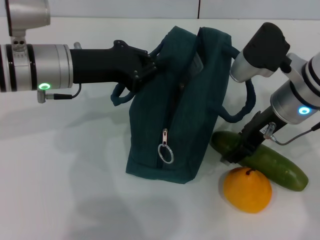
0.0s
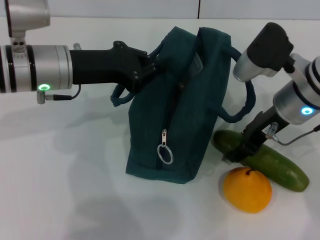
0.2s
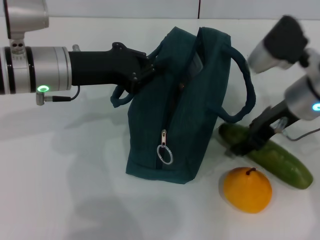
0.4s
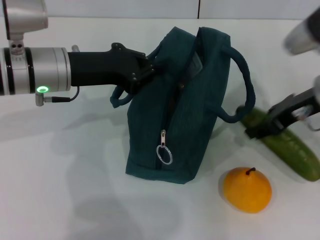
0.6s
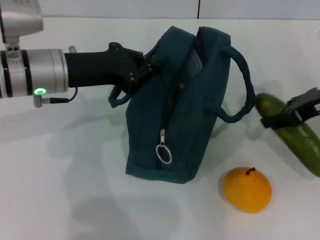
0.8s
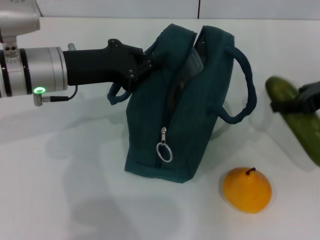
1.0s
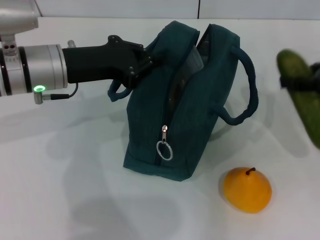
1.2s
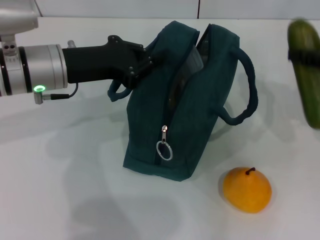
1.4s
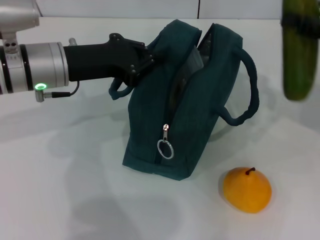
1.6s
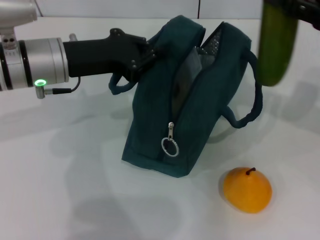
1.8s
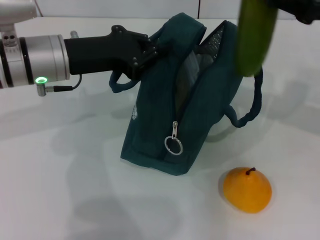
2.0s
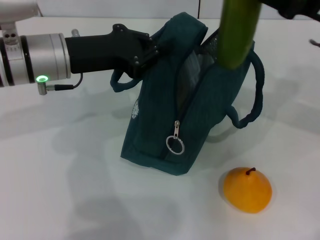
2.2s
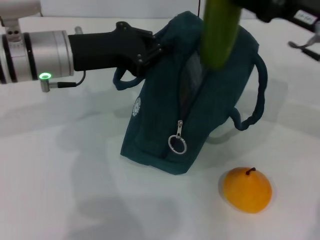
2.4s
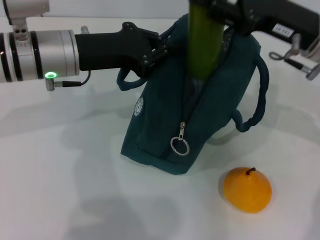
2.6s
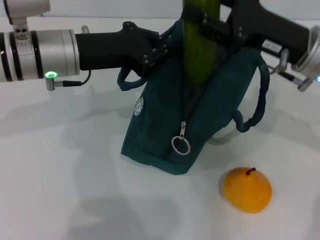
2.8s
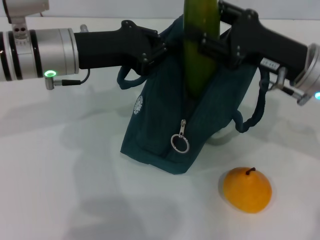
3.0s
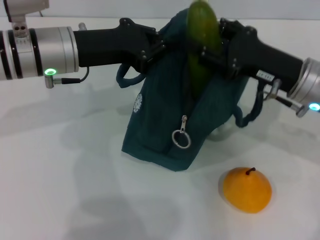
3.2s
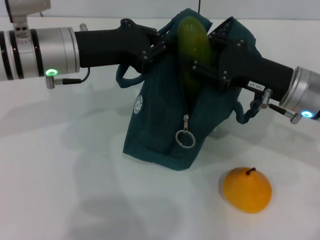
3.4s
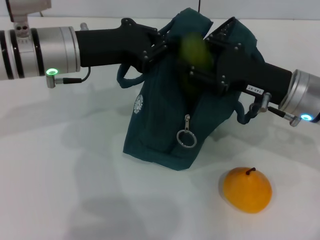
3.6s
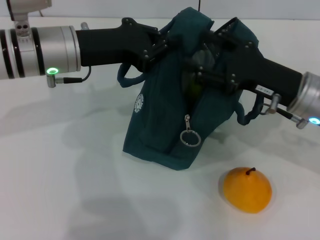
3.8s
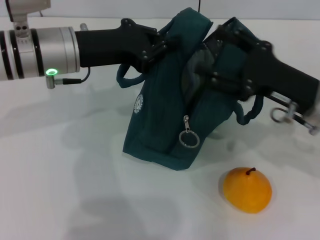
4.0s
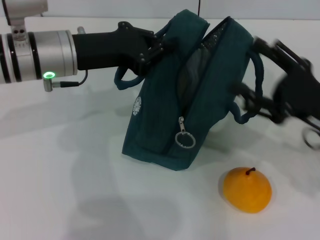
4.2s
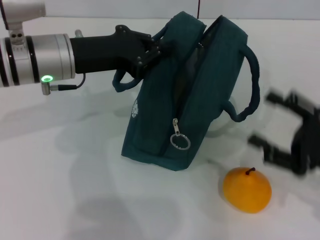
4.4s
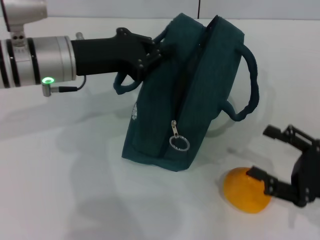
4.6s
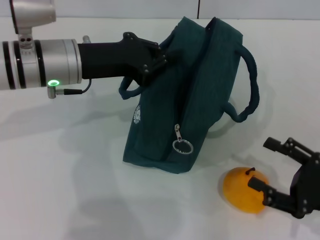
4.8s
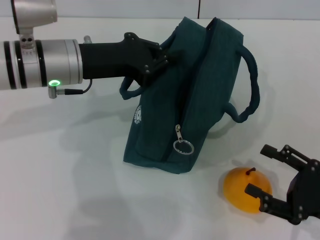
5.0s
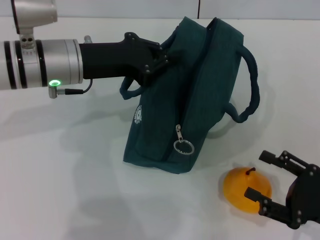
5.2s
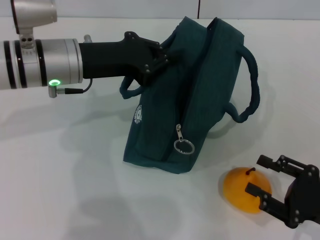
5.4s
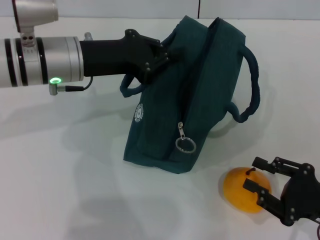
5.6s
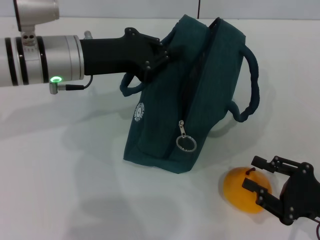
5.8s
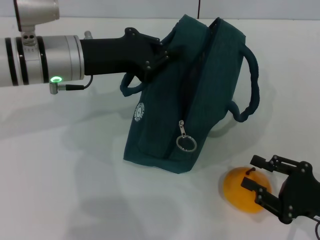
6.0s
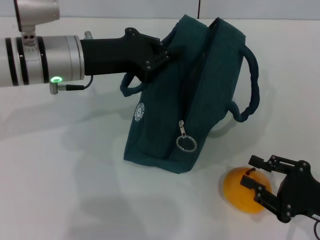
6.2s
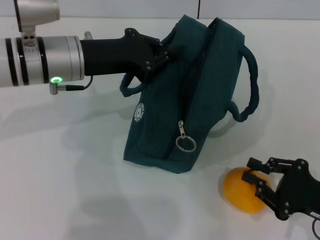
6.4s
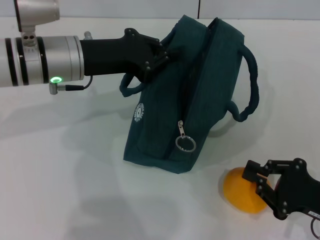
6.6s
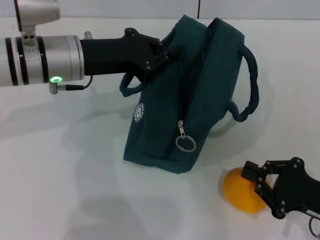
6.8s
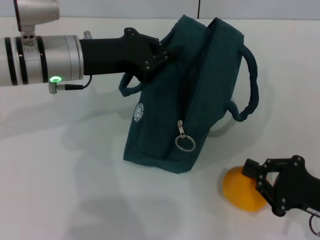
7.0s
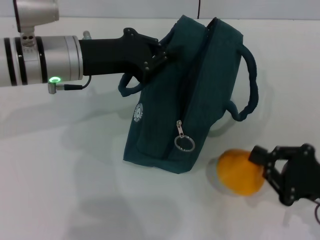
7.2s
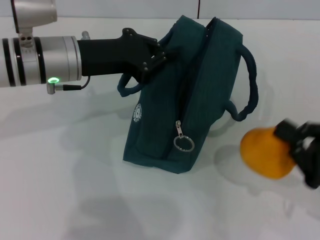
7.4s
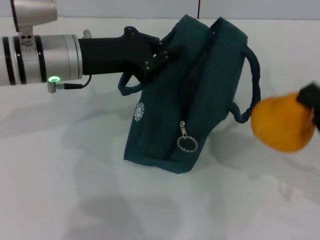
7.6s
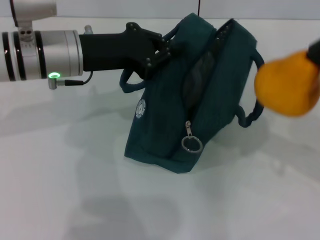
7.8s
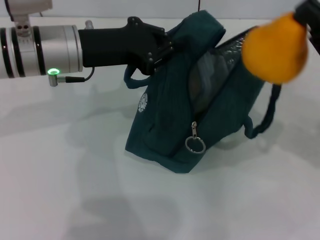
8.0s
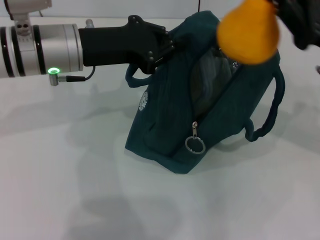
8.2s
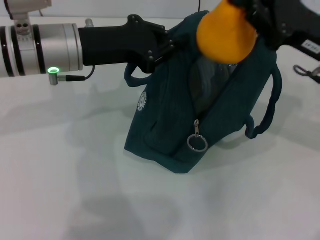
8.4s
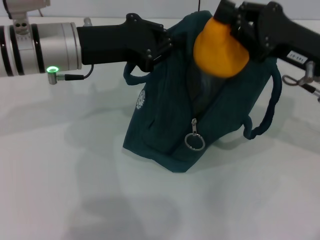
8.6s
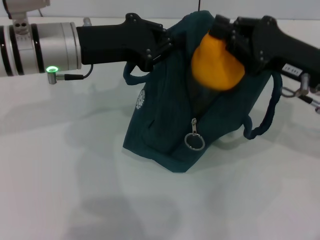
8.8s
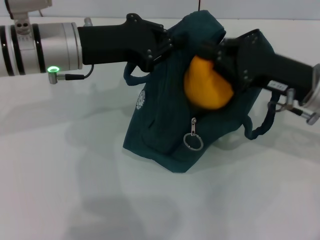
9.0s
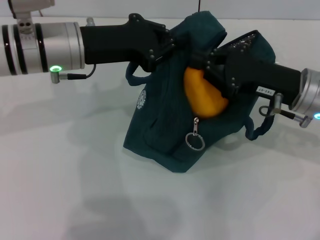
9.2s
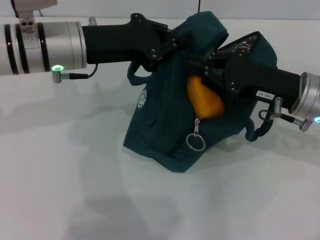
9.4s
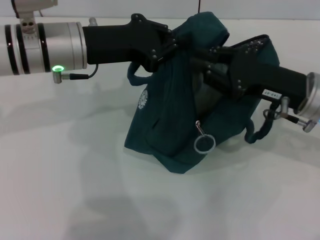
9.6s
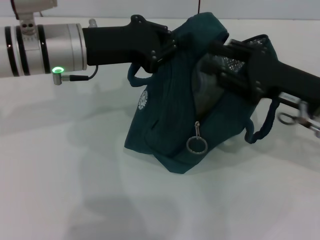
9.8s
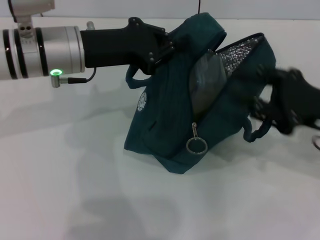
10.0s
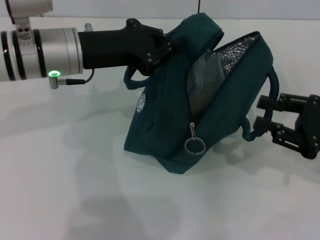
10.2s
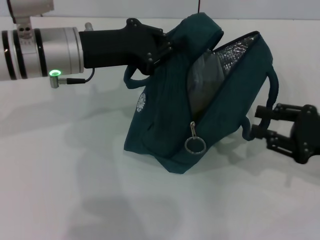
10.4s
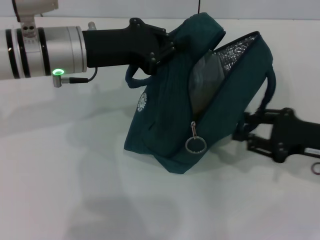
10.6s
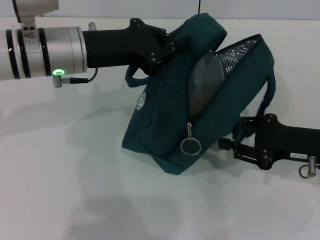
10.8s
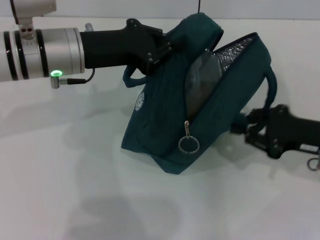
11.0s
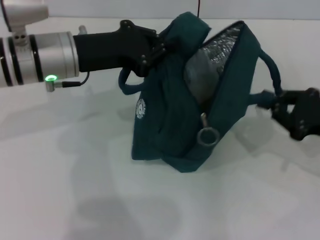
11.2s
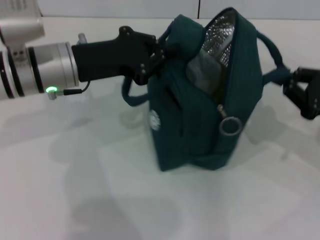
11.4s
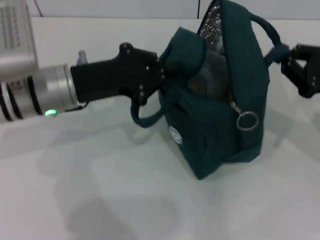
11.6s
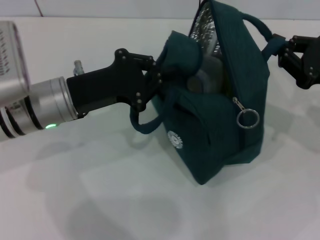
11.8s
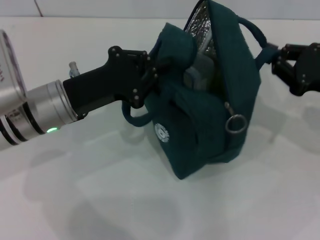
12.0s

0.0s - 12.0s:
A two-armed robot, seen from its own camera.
Step, 0.0s - 4.0s: Put the cucumber into the lunch bag with your right hand.
Step, 4.2s - 6.8s: Grab the pear with your right hand.
0.0s - 1.6s: The right gripper heads to the right and upward, covering approximately 15 cm.
1.6s - 3.0s: The right gripper is displaced to the left and downward by some 15 cm.
3.0s - 4.4s: The right gripper travels backward, to the right and downward by roughly 15 cm, and opens up.
4.4s - 6.0s: The right gripper moves downward, some 5 cm, and closes its fingers.
6.0s - 7.6s: The right gripper shifts about 5 cm upward, and closes.
7.6s - 9.0s: The right gripper travels forward and to the left by about 15 cm.
9.0s - 10.4s: The right gripper moves to the right and backward, about 10 cm, and opens.
10.4s - 12.0s: The right gripper moves about 5 cm, and closes; the left gripper is displaced downward and backward by approximately 10 cm.

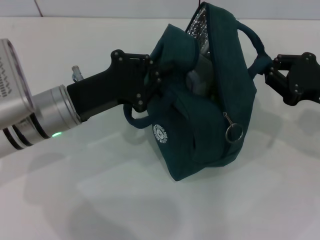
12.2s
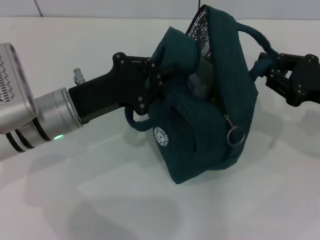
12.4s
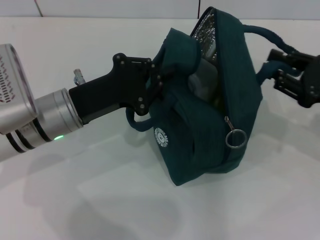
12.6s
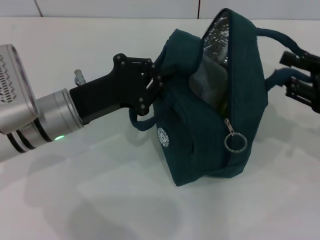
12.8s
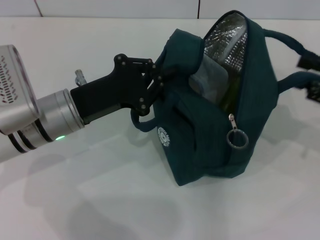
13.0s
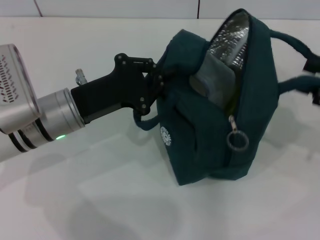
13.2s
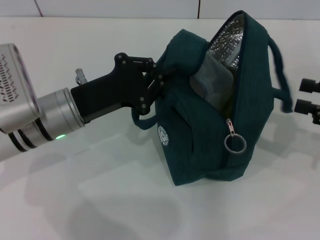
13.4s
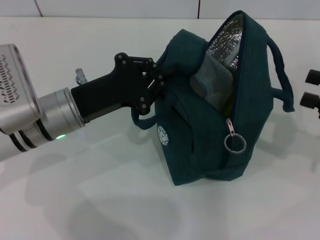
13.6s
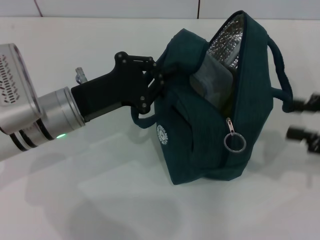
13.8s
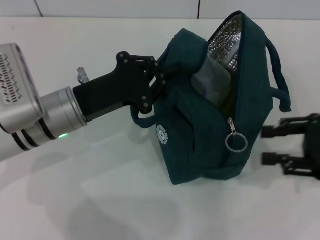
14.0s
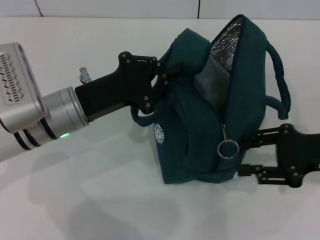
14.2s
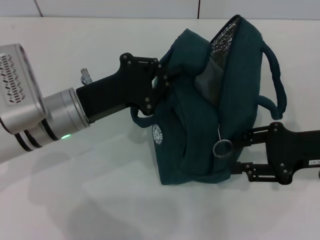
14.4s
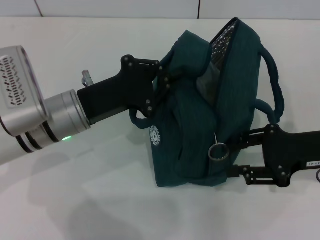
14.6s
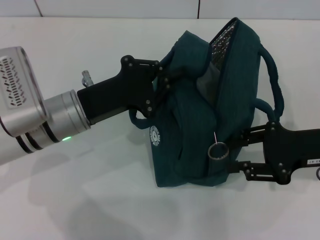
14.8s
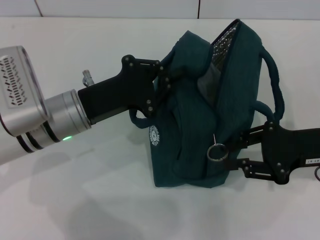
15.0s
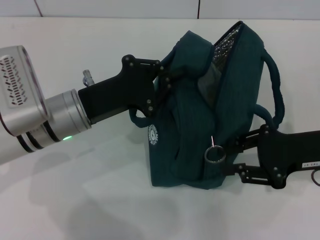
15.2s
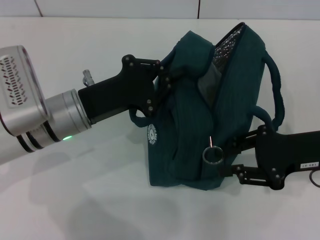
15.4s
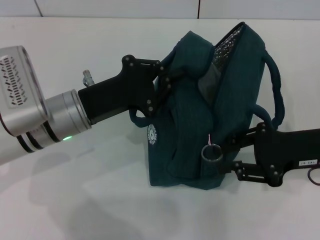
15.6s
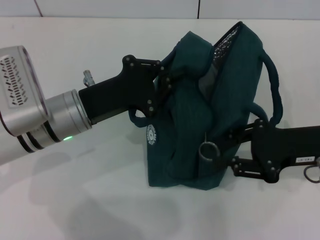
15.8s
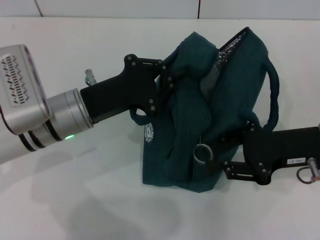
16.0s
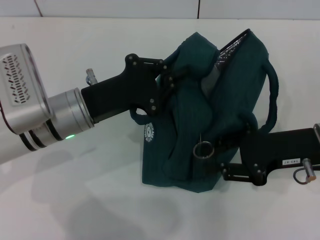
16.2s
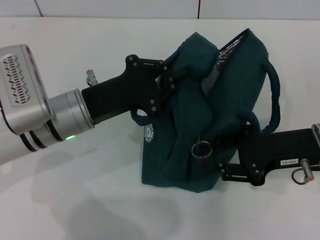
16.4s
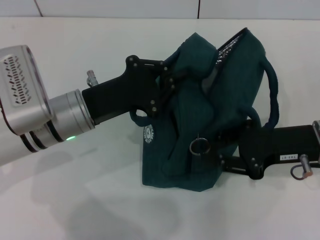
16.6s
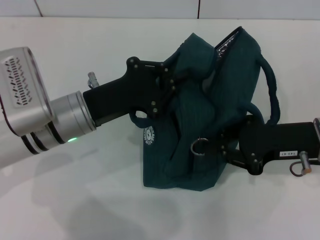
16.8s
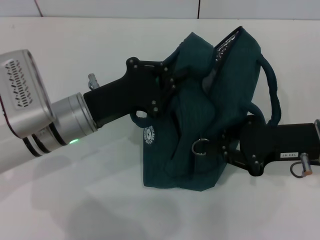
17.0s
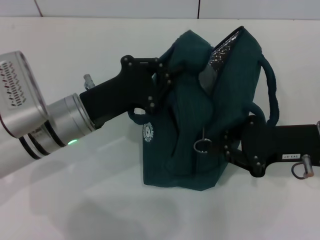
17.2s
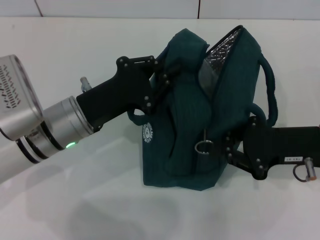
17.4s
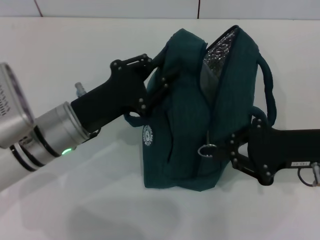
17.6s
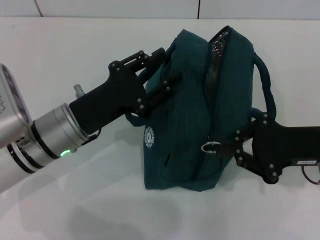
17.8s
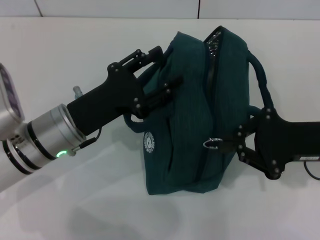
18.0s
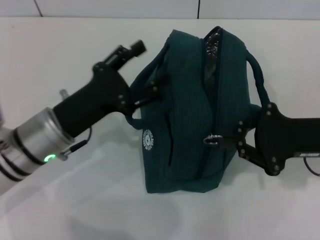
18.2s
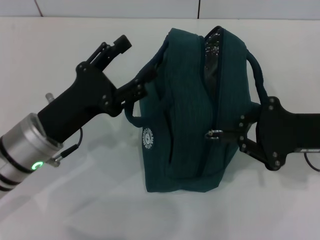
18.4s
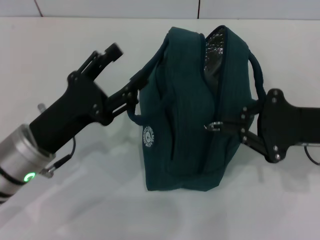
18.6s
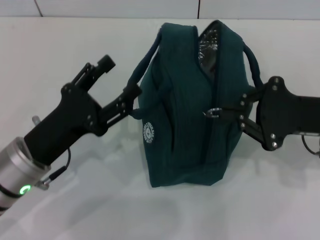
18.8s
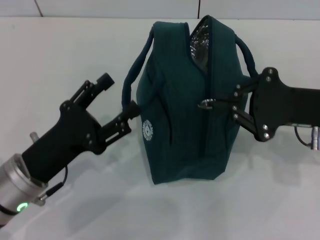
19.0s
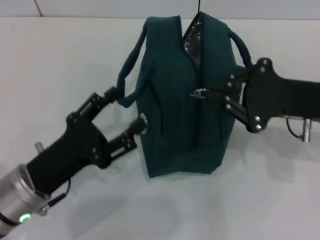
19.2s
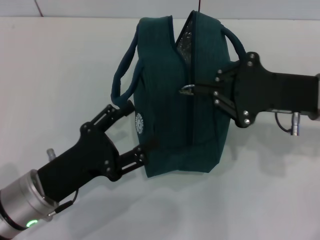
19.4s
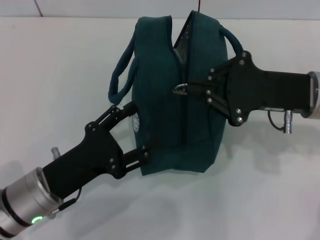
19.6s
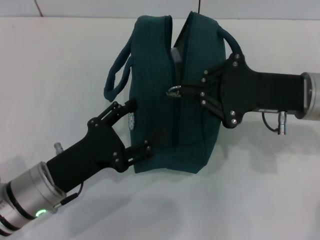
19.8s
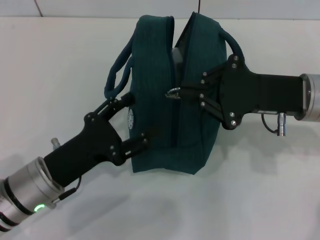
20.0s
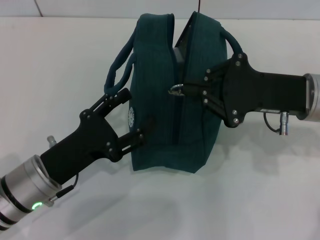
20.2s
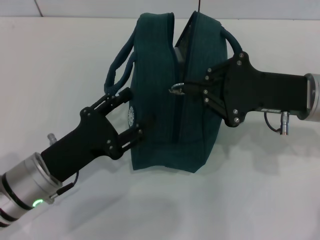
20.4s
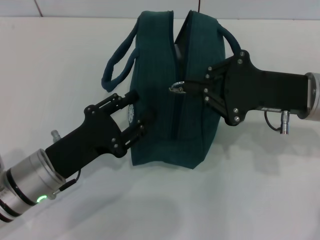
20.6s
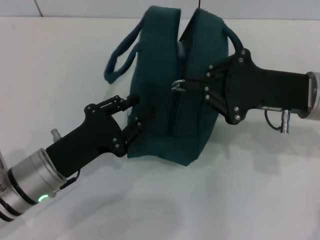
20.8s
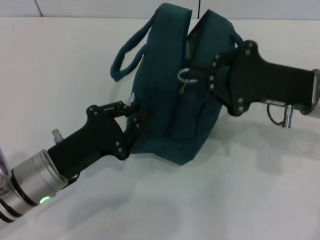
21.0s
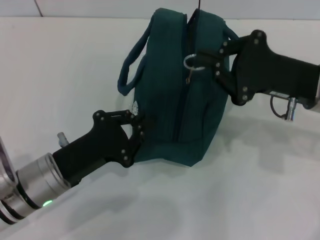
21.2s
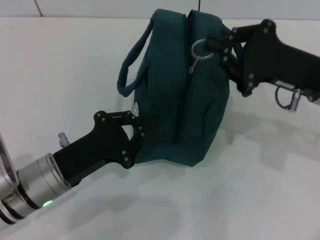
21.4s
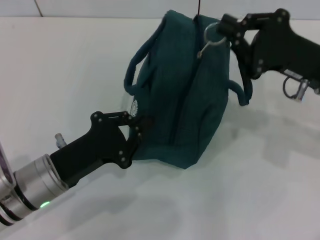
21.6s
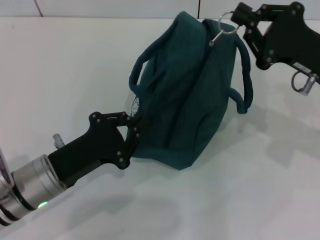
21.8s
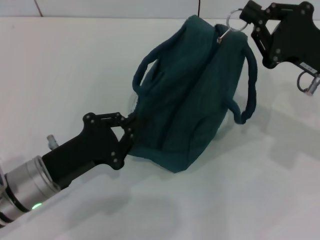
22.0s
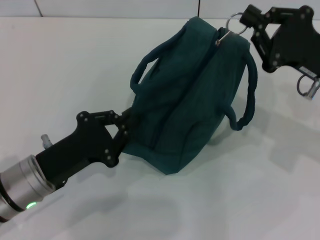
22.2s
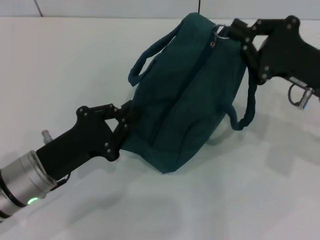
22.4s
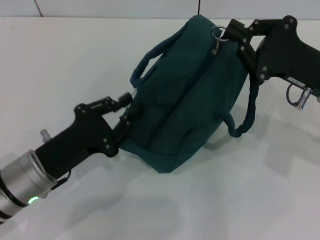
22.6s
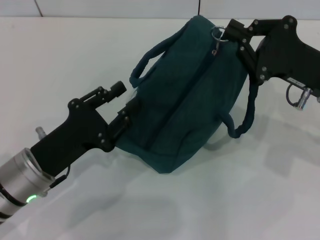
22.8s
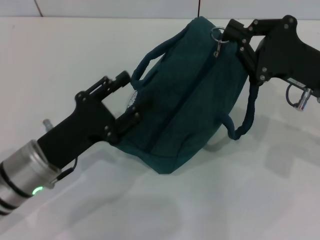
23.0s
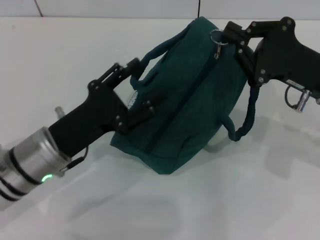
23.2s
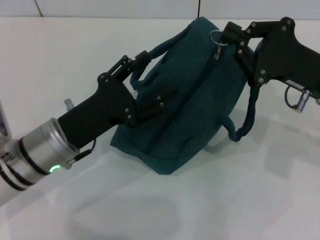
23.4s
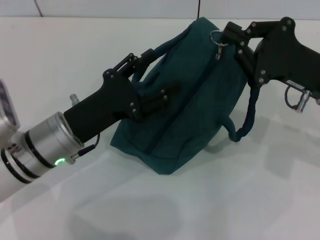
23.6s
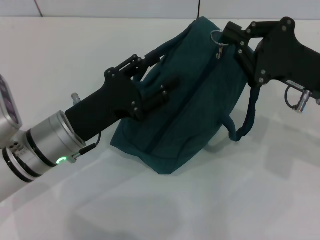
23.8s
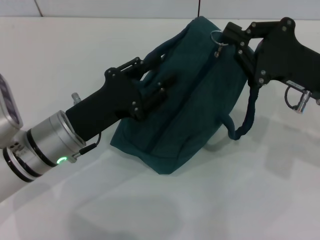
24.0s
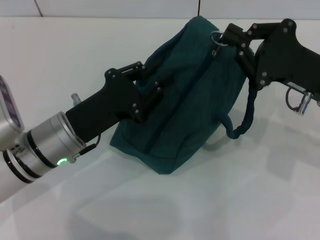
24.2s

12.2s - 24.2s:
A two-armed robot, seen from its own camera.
Step, 13.6s - 17.8s: Hold the lunch bag with your left hand.
12.2s - 13.8s: The right gripper travels to the right by about 5 cm, and opens its fingers.
13.8s - 15.2s: The right gripper shifts roughly 10 cm to the left.
15.2s - 16.6s: The grippers make only small movements.
16.6s - 18.2s: The left gripper opens up.
18.2s - 19.8s: The left gripper travels backward by approximately 5 cm. The right gripper shifts by about 5 cm.
19.8s - 21.2s: The left gripper closes.
22.6s - 24.2s: The left gripper moves roughly 5 cm, and opens.
